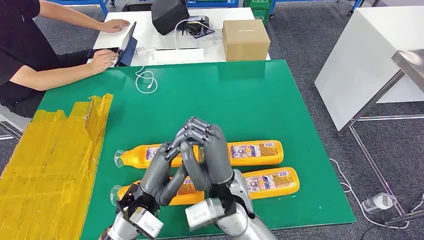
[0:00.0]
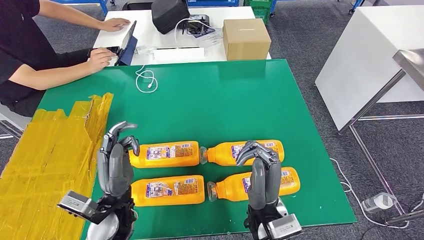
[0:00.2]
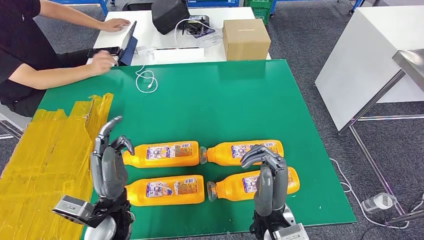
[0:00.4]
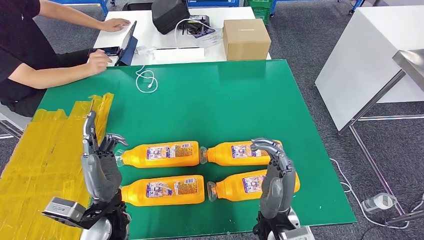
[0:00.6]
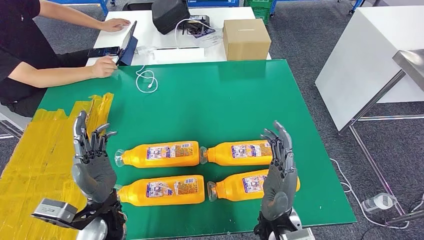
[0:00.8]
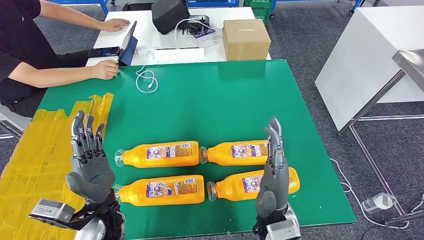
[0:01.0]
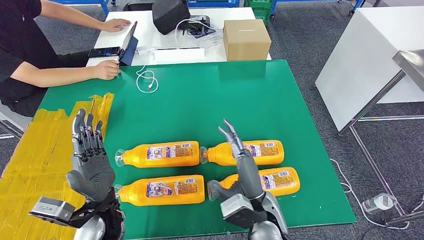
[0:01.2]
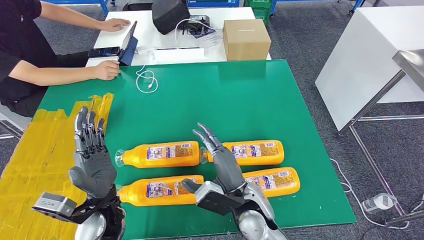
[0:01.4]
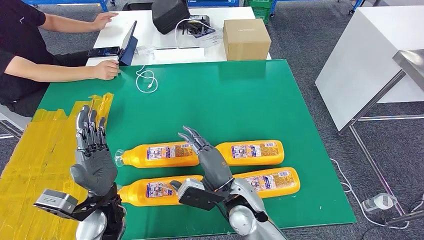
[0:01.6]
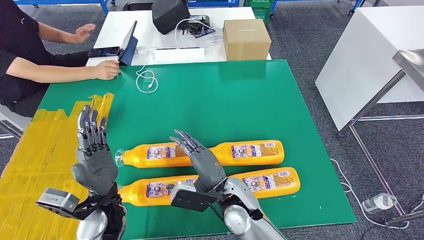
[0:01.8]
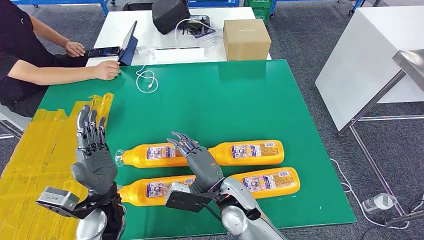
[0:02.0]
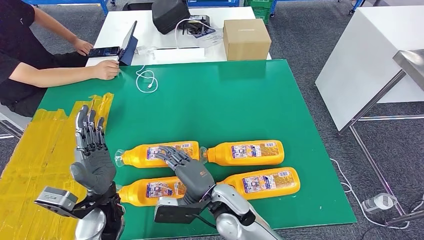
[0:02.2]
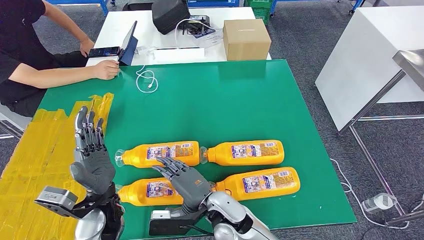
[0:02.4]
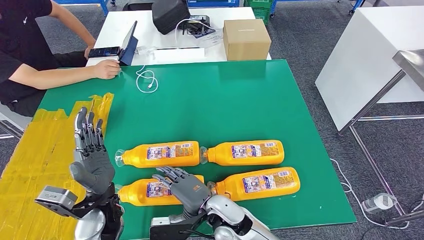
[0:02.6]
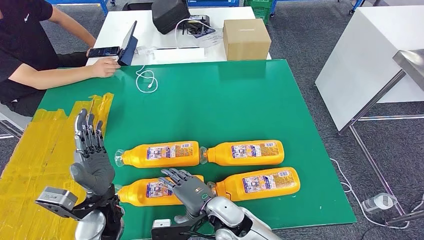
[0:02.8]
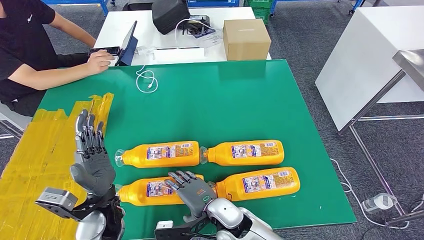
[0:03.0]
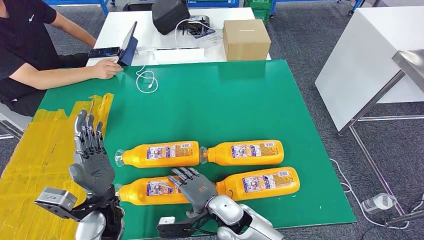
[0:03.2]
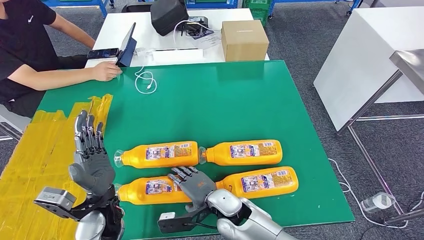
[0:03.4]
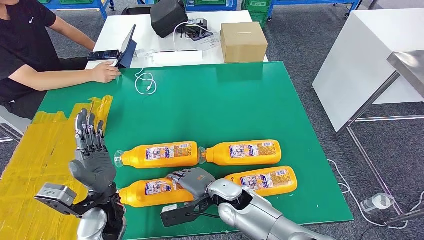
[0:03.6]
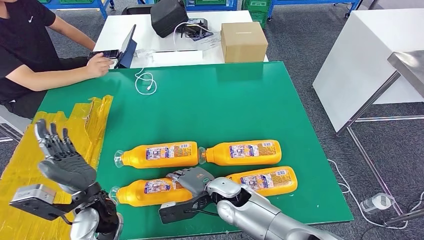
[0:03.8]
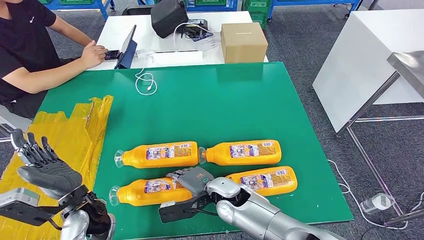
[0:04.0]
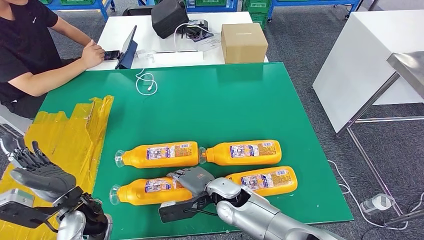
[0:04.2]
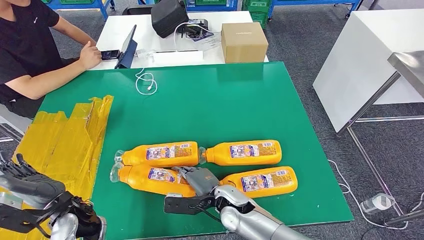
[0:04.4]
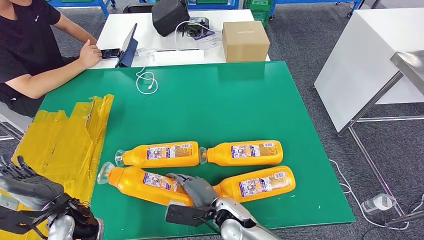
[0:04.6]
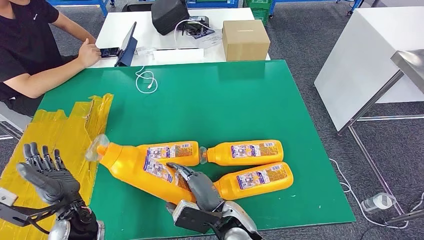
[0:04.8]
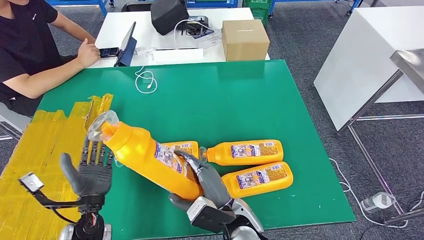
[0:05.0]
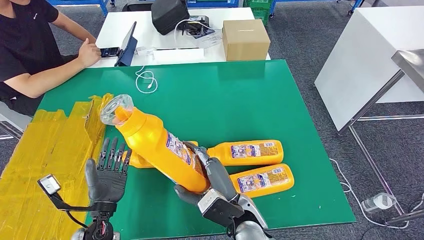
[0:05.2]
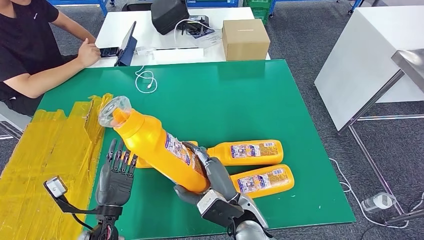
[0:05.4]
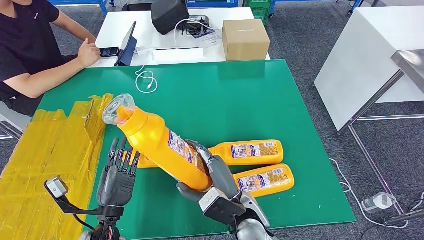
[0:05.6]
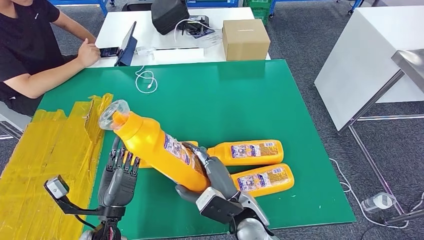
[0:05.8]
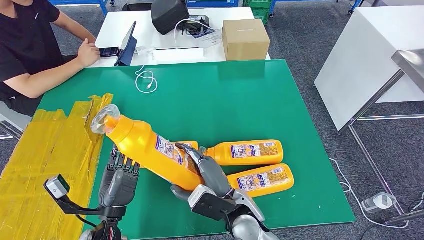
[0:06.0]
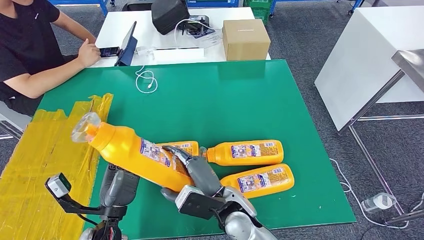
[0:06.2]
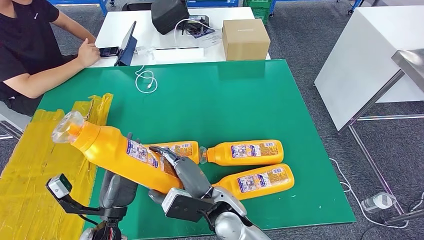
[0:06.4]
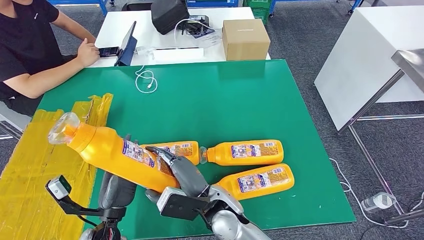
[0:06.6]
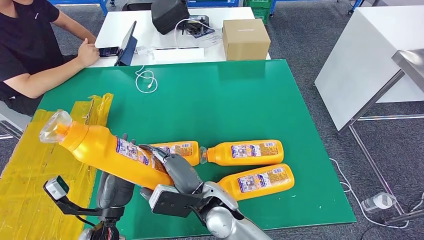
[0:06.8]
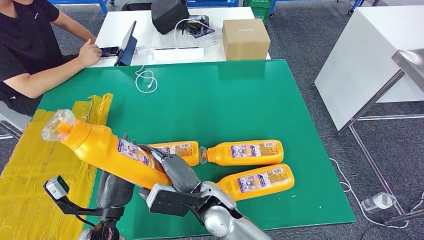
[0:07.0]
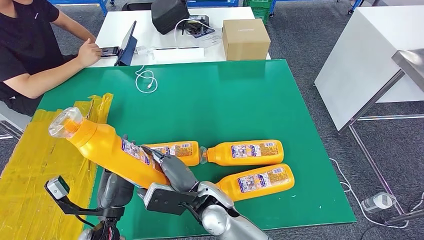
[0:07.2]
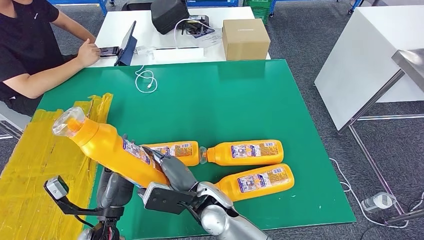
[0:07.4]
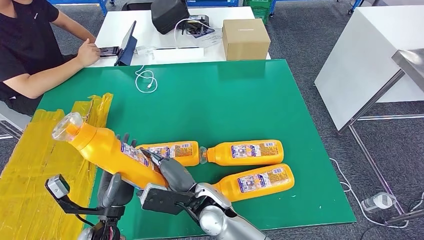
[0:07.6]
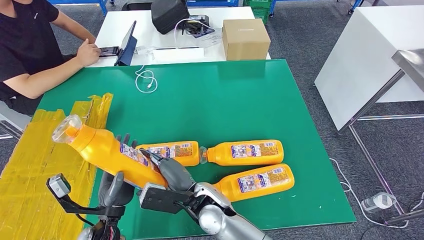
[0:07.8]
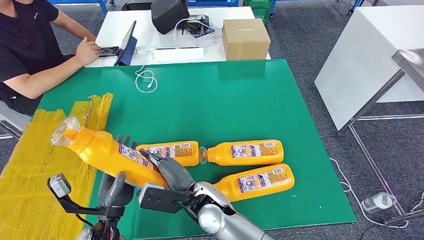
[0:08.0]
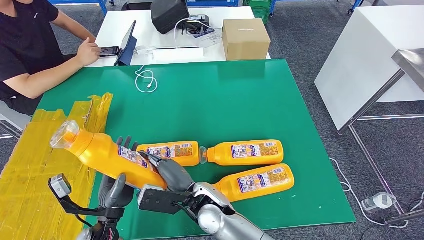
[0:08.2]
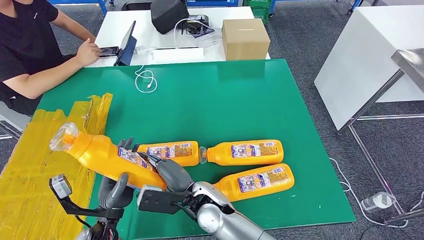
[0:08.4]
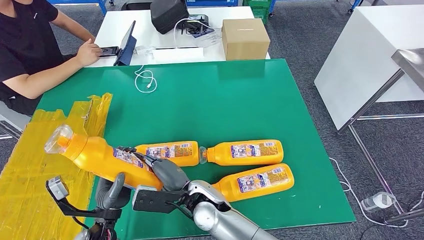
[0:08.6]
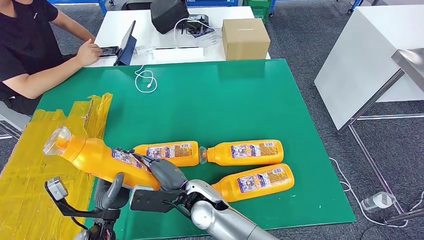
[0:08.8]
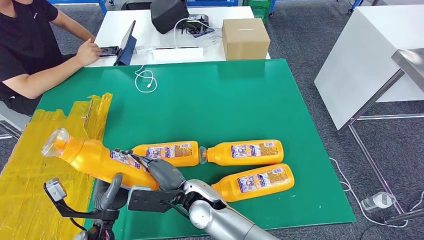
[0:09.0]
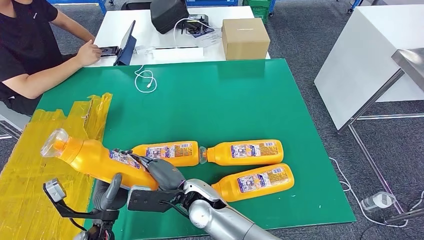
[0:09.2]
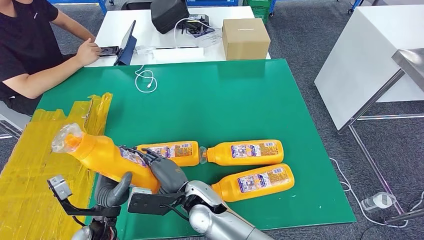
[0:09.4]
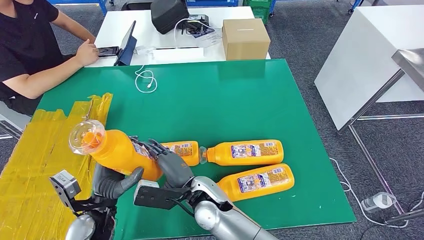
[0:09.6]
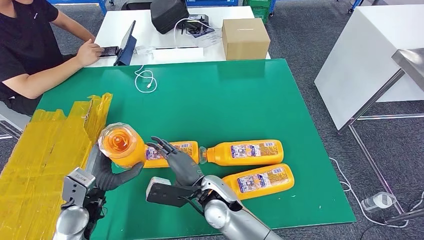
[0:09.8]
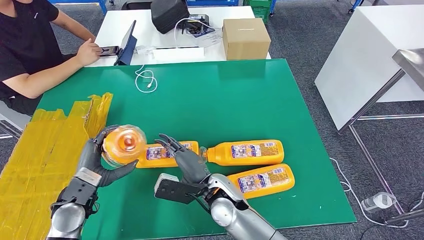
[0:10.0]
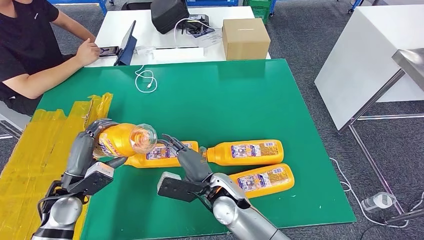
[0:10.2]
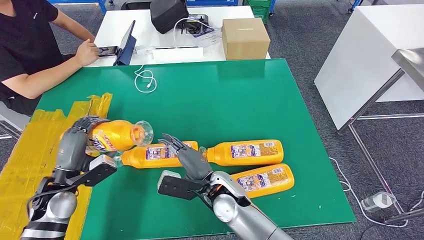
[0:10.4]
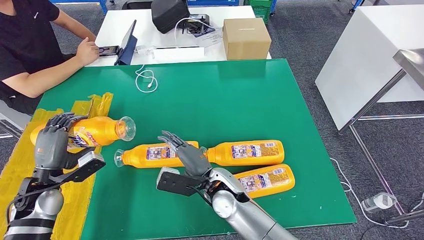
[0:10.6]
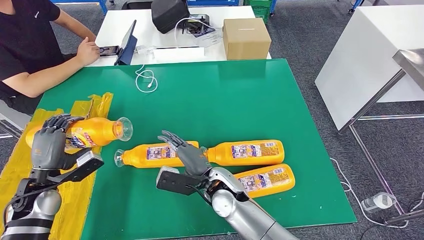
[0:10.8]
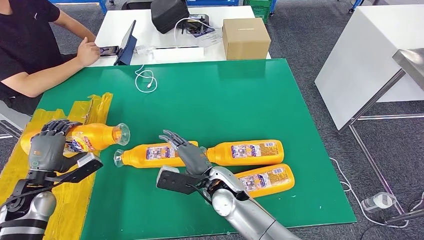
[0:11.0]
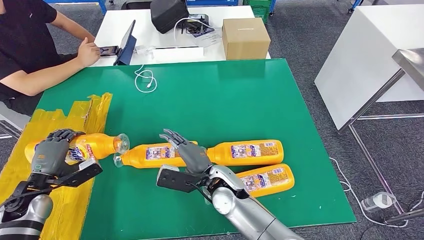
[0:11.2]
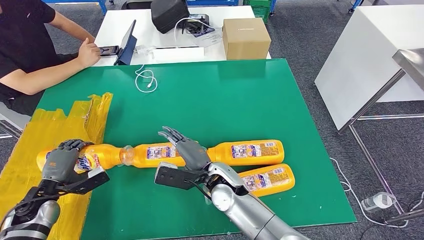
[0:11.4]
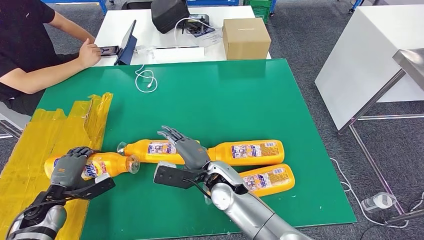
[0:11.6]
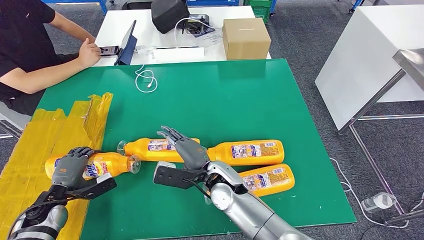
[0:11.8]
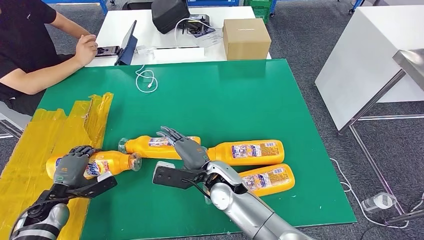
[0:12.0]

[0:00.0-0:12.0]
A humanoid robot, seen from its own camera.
Step, 0.0 to 4.8 s: Take the bottle from the table.
1.6 to 3.0 s: The right hand is displaced downward by some 5 cm.
6.0 to 7.6 s: The right hand heads to the left, covering some 10 cm.
7.6 to 9.0 s: The hands move only a little.
9.0 to 10.4 s: The left hand goes about 15 cm to the left, forward and upward. The right hand travels to the right by roughly 5 cm.
10.4 to 12.0 s: The left hand heads downward and to the left, covering about 10 cm.

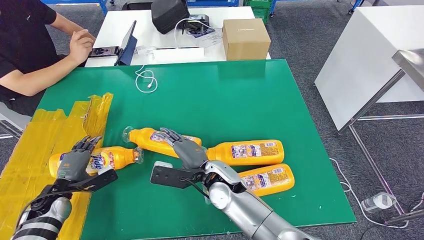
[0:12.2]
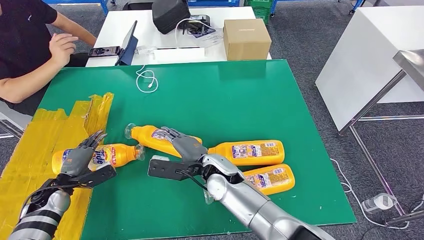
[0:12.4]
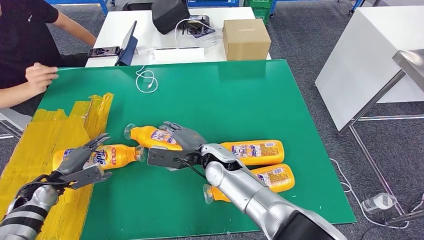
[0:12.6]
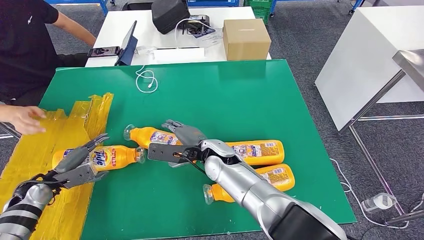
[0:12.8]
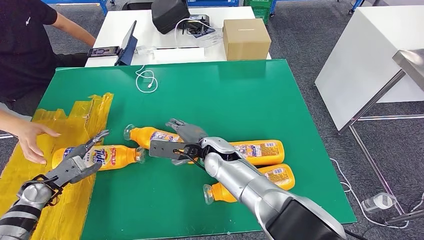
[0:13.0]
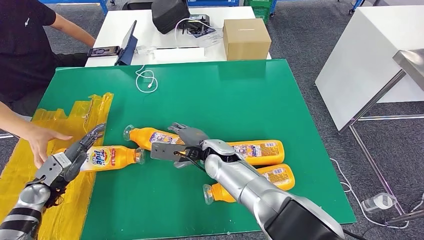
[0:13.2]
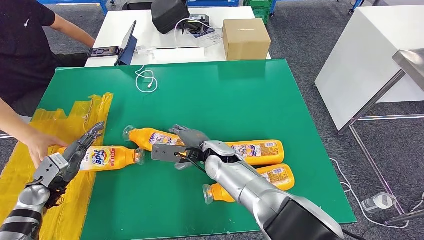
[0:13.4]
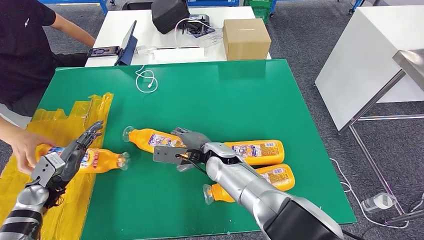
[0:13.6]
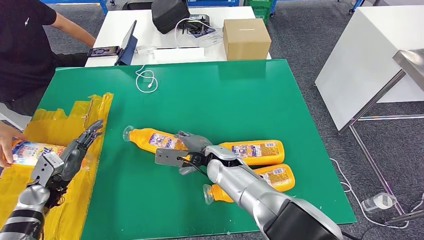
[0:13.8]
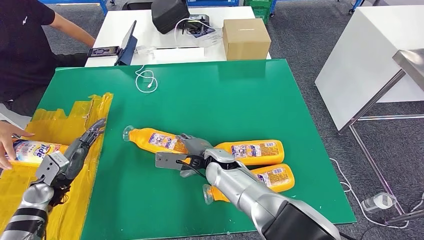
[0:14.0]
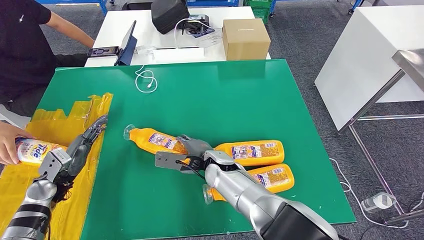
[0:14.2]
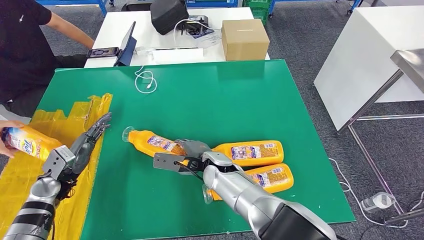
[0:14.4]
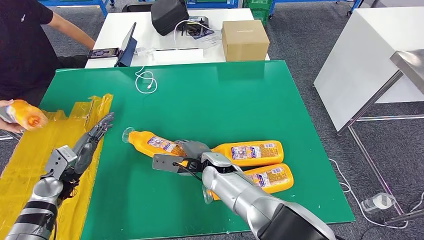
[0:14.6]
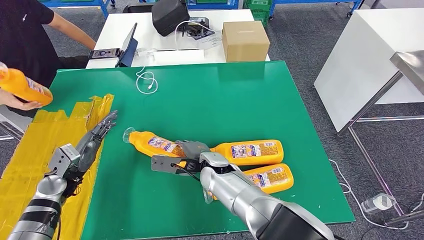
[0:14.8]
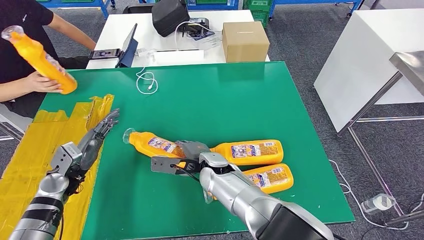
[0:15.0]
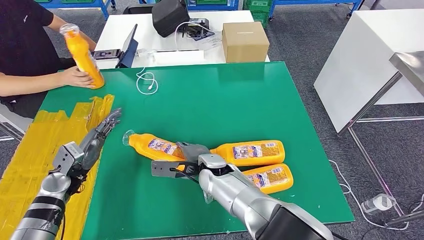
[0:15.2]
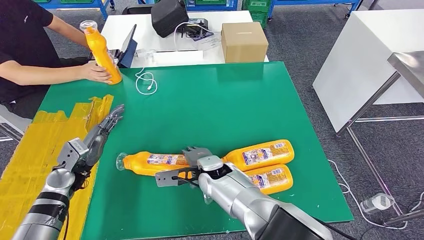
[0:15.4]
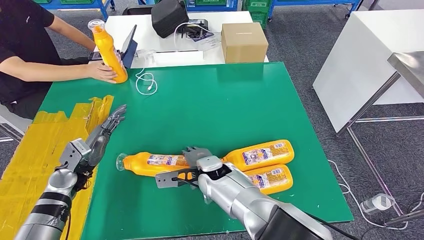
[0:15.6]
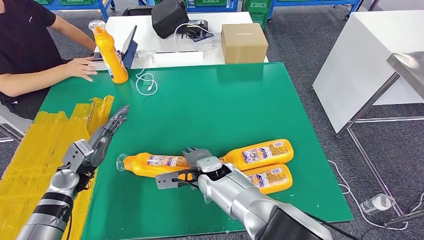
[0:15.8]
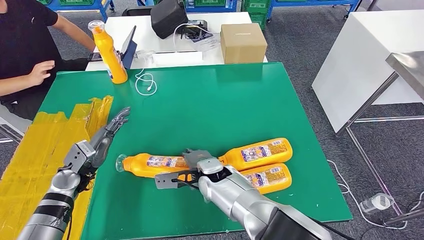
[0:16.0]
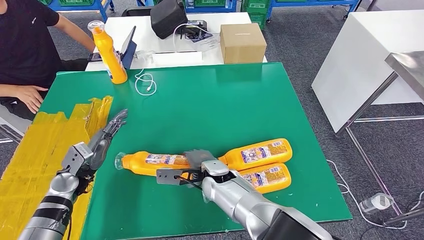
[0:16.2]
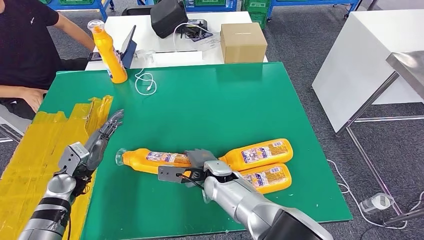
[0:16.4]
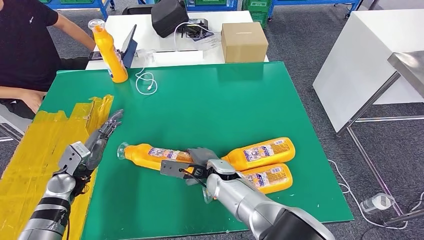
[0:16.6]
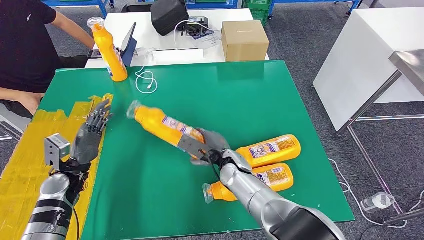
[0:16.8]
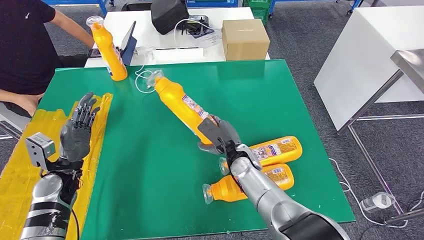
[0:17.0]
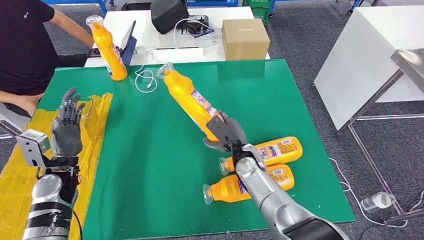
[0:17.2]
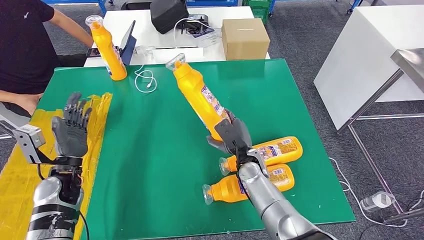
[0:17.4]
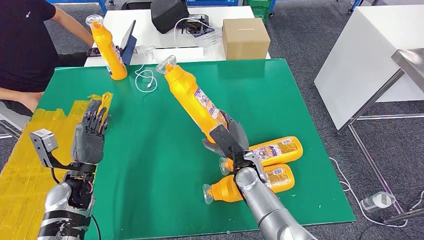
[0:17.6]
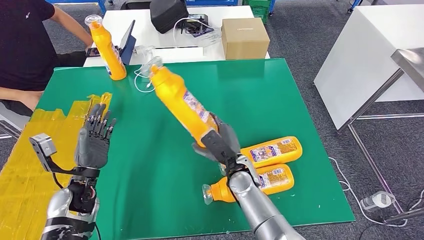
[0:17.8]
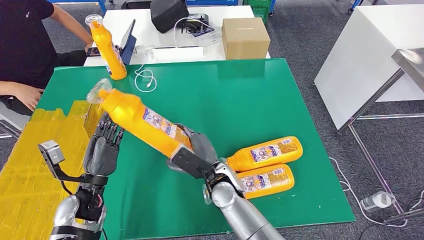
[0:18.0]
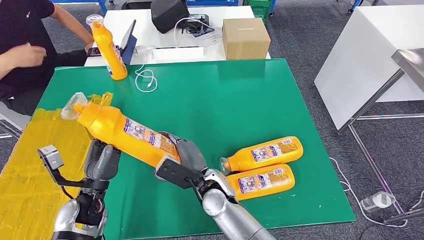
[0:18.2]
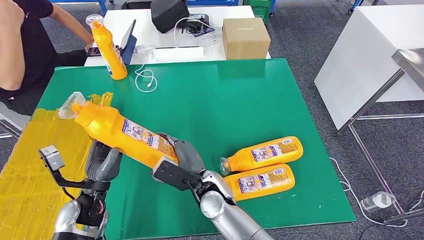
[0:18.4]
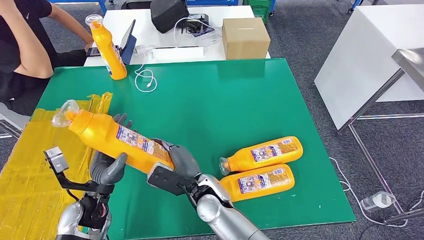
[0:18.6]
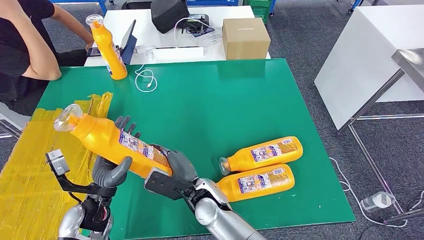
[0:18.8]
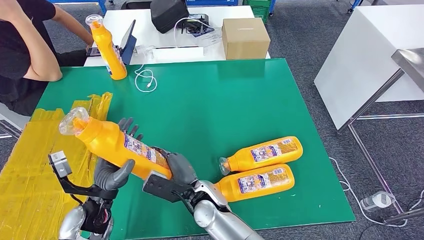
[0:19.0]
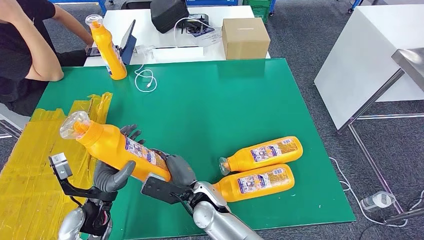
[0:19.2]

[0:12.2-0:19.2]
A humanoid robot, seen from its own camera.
Step, 13.4 to 17.4 s: Pick up the bottle from the table.
12.2 to 13.6 s: The right hand heads forward, covering some 5 cm.
